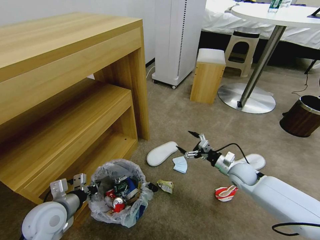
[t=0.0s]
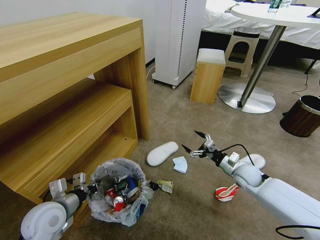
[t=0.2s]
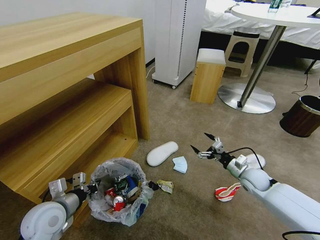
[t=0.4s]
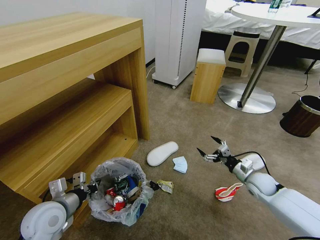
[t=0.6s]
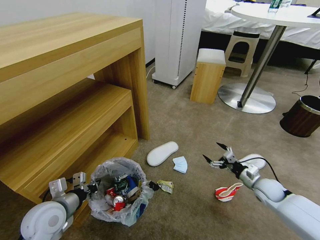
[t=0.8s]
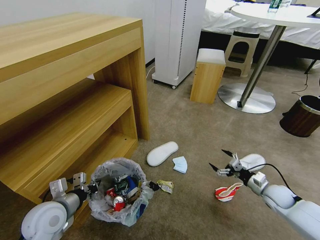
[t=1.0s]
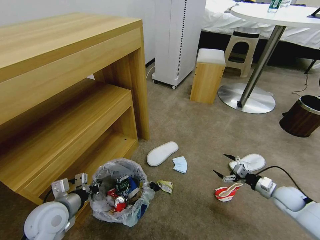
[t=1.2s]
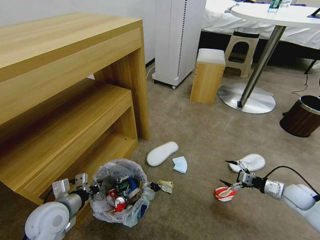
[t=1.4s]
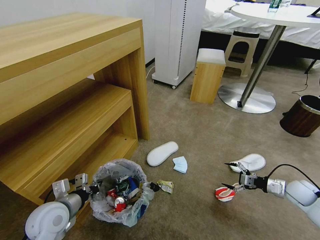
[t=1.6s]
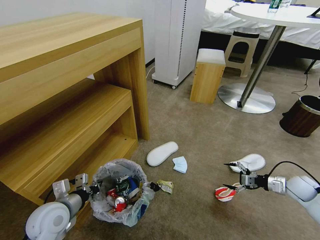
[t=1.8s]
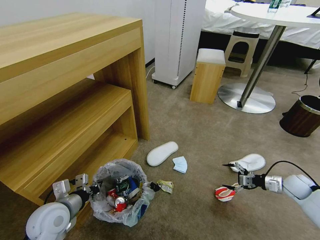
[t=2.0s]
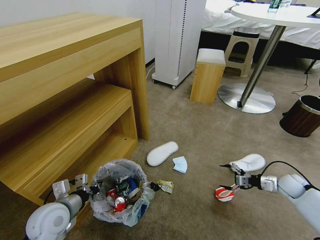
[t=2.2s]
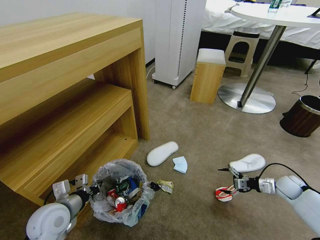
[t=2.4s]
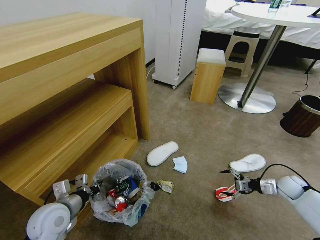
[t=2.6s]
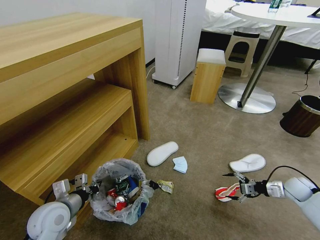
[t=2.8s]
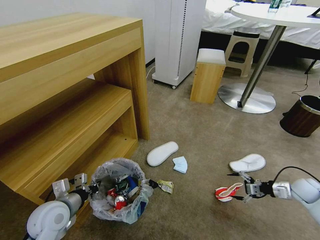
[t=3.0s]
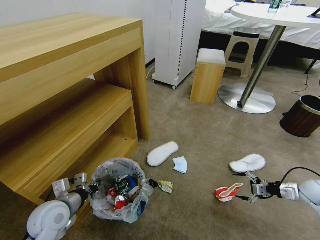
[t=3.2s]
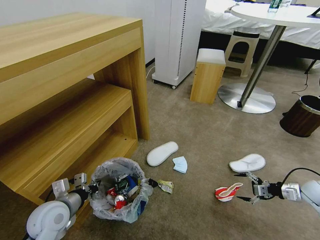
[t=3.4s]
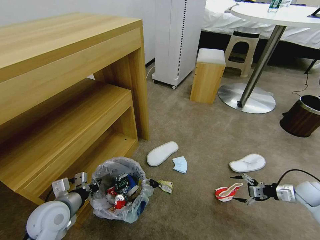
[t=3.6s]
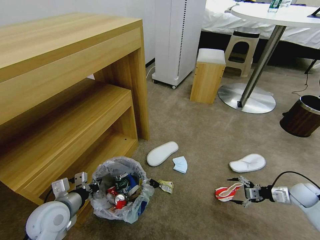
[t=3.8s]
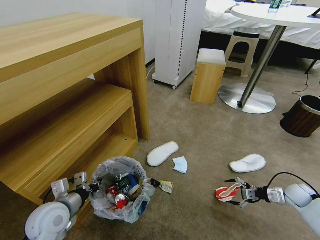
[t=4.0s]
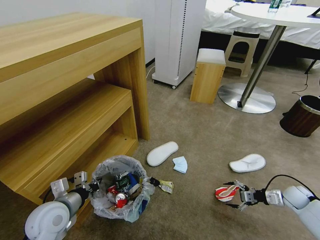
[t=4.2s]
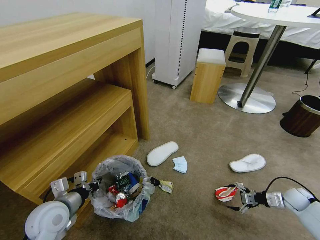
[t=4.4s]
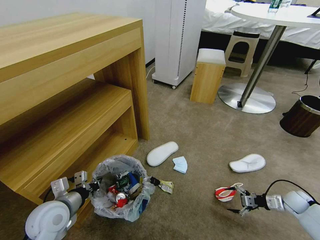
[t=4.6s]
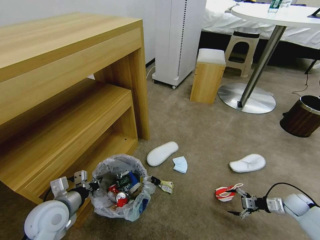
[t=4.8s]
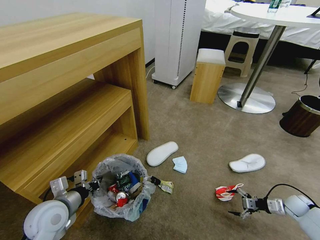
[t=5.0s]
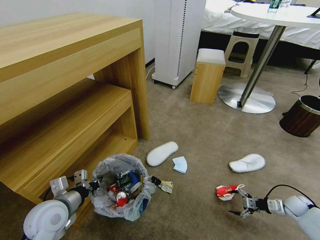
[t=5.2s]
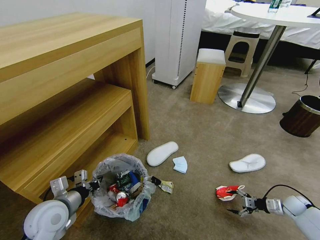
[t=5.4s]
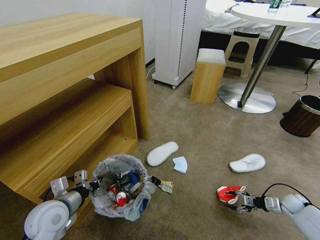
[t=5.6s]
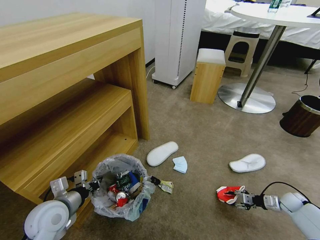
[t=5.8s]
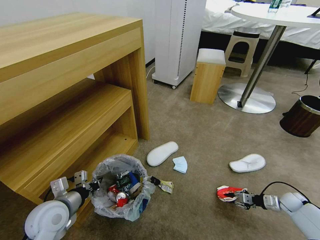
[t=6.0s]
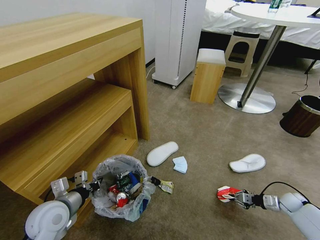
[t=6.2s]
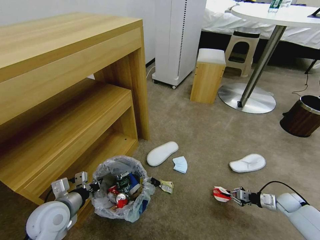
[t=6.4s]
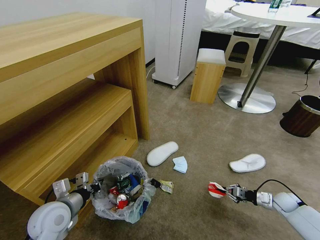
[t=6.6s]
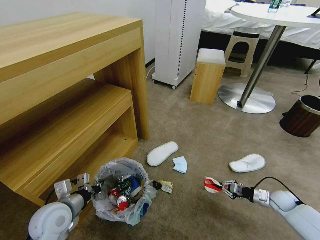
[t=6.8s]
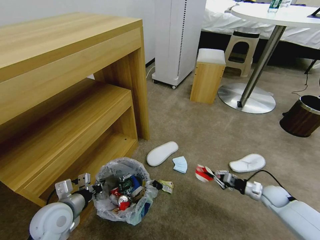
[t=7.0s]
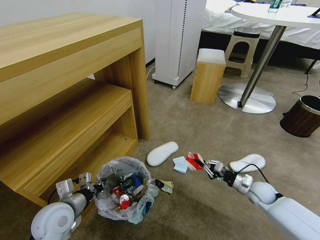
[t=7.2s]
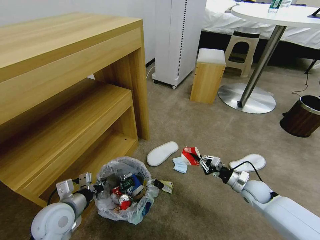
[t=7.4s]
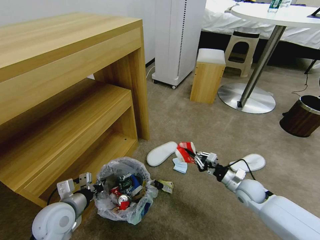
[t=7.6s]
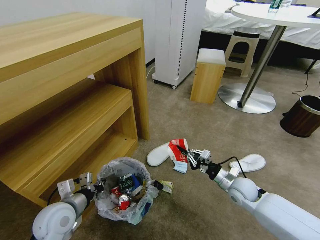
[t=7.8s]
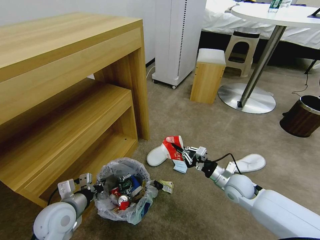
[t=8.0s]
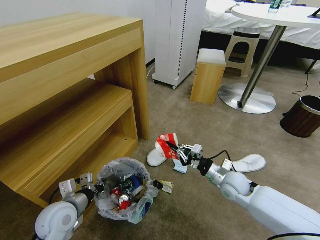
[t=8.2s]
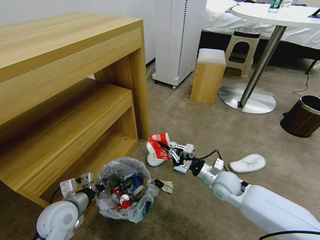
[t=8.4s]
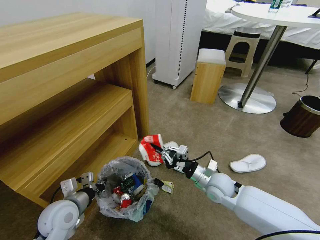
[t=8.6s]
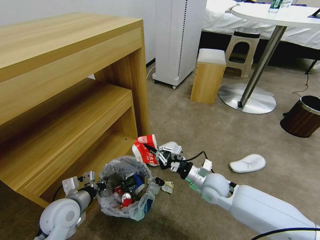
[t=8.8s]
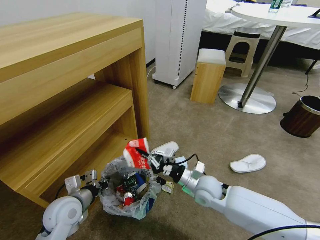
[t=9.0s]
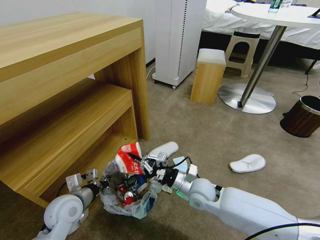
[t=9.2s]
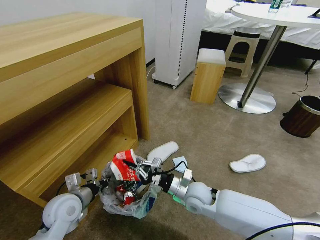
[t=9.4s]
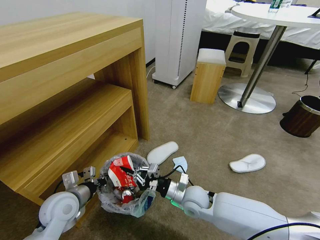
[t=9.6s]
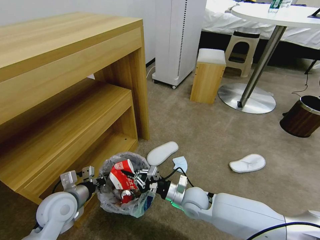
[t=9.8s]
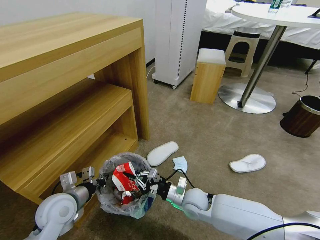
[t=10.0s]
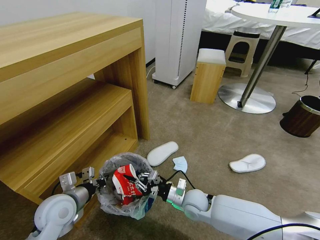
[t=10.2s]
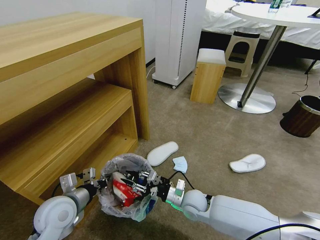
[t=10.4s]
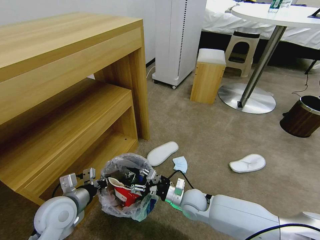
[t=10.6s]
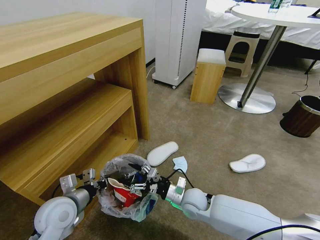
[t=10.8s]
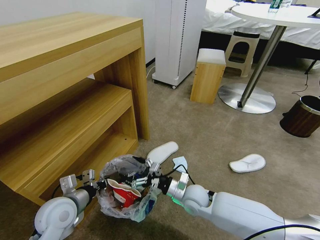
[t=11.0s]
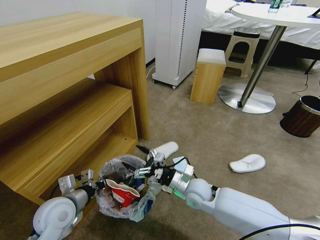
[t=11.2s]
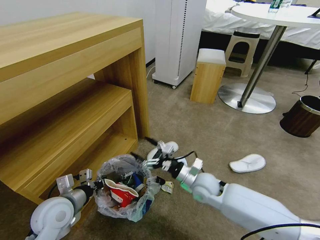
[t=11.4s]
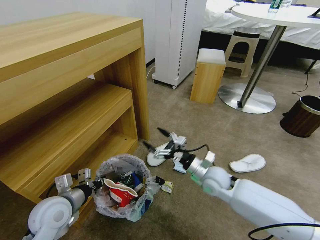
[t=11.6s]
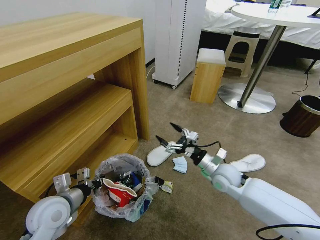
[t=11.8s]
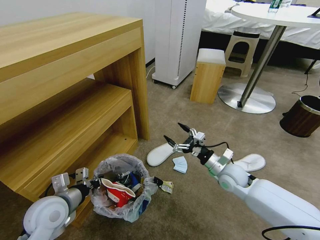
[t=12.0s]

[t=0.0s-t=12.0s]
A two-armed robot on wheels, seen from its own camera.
Task of the whole recording: Pick up the trash bin and place the garbage on the floor into it.
t=0.0s to t=1.6s: The right gripper moves to the right, roughly 20 cm.
t=1.6s to t=3.0s: The grippers stay close to where they were, moving slightly.
t=3.0s to t=4.4s: The right gripper heads downward, covering some 5 cm.
t=4.4s to t=6.0s: The right gripper closes up.
t=6.0s to t=7.6s: The right gripper travels to the left and upward by approximately 25 cm.
t=7.6s to t=9.0s: The right gripper heads to the left, covering some 20 cm.
t=9.0s to t=10.4s: The right gripper heads downward, covering approximately 10 cm.
t=10.4s to t=12.0s: The right gripper is displaced to the right, upward and forward by some 15 cm, and opens.

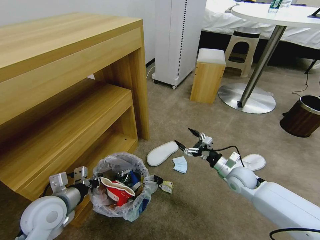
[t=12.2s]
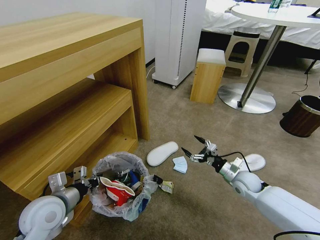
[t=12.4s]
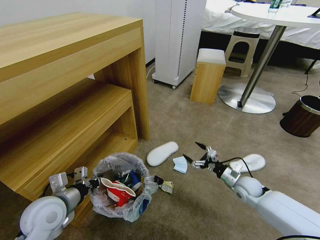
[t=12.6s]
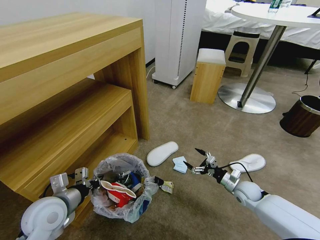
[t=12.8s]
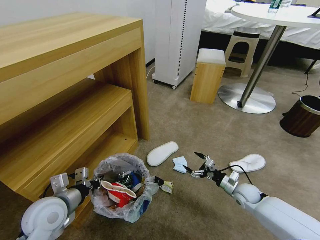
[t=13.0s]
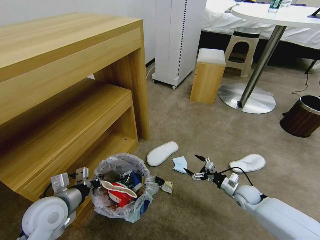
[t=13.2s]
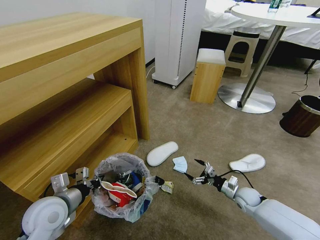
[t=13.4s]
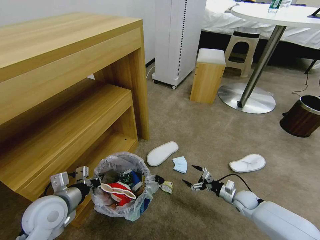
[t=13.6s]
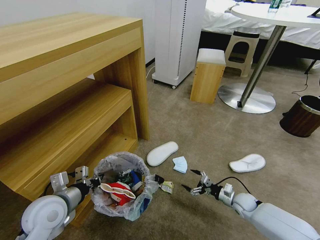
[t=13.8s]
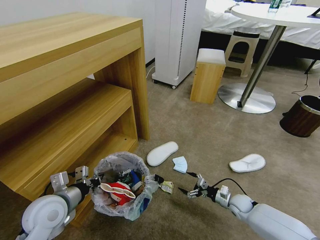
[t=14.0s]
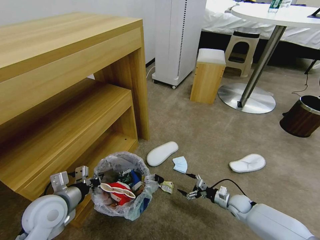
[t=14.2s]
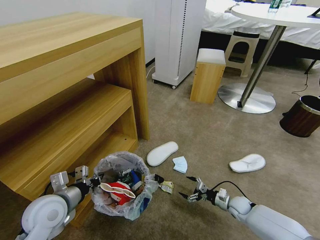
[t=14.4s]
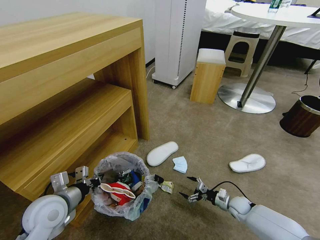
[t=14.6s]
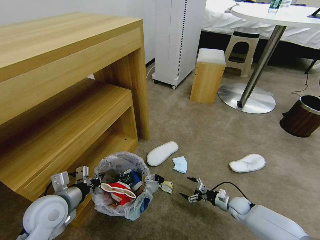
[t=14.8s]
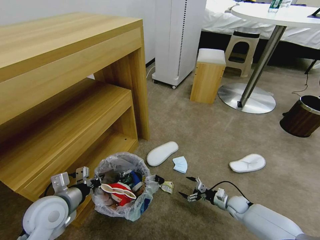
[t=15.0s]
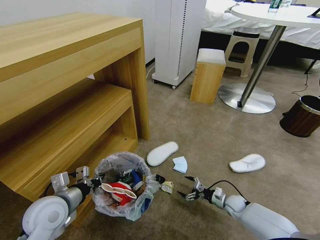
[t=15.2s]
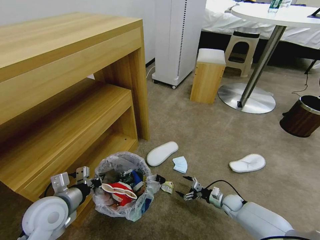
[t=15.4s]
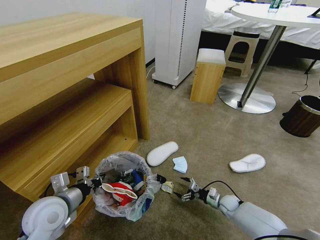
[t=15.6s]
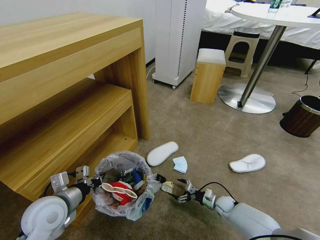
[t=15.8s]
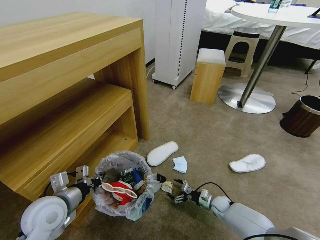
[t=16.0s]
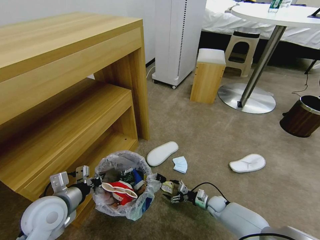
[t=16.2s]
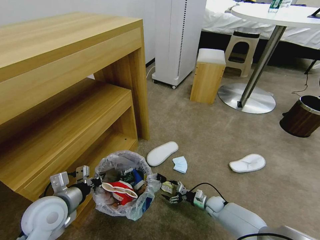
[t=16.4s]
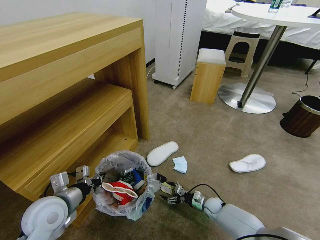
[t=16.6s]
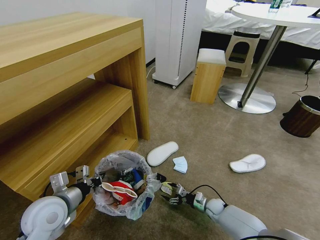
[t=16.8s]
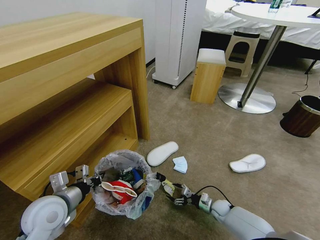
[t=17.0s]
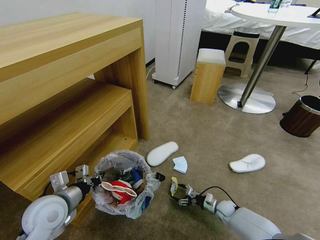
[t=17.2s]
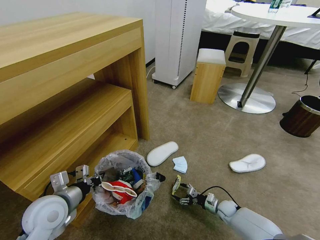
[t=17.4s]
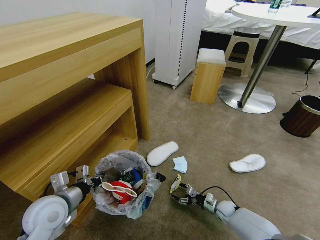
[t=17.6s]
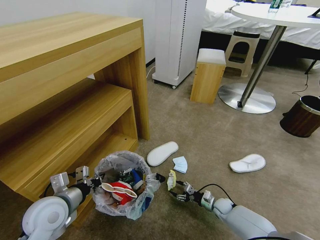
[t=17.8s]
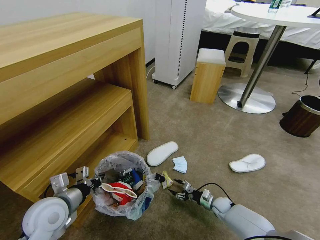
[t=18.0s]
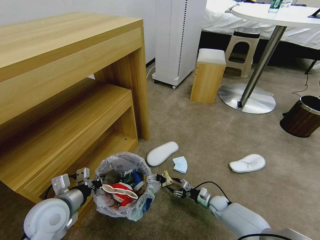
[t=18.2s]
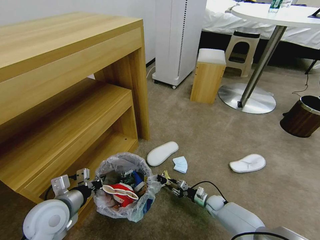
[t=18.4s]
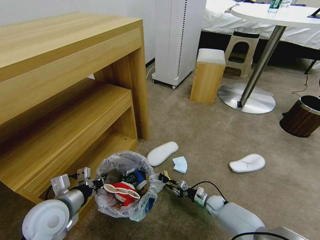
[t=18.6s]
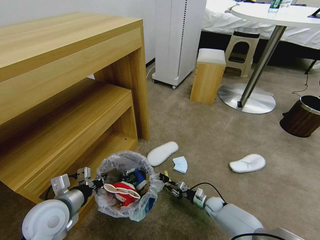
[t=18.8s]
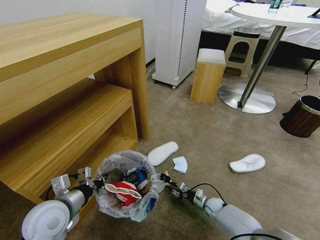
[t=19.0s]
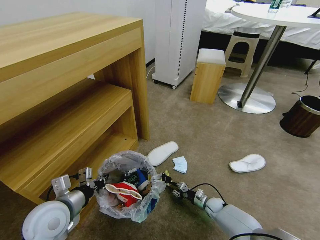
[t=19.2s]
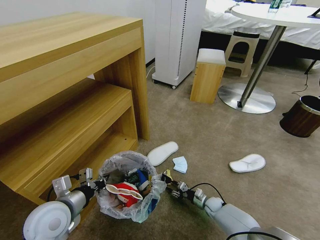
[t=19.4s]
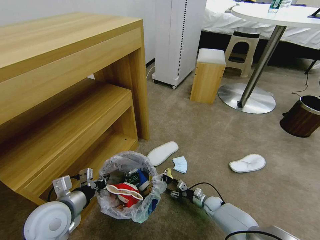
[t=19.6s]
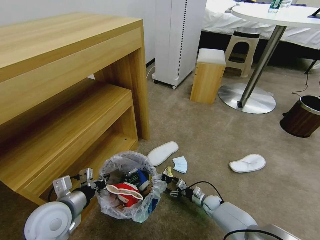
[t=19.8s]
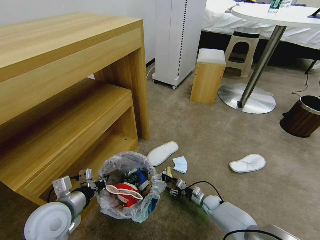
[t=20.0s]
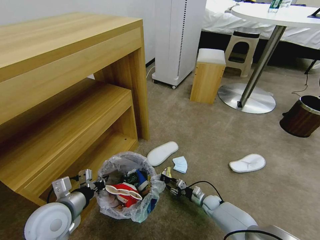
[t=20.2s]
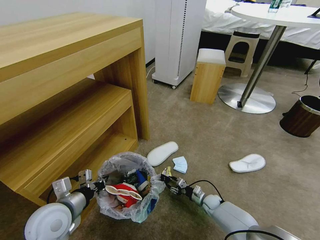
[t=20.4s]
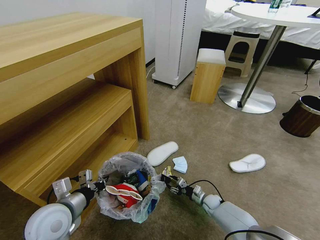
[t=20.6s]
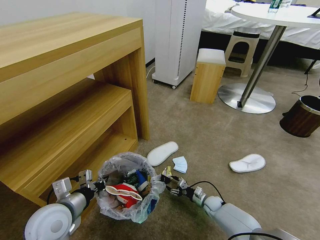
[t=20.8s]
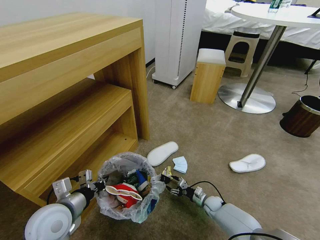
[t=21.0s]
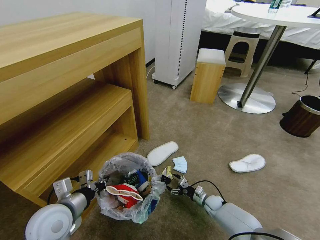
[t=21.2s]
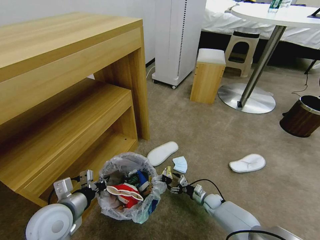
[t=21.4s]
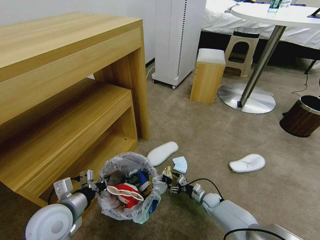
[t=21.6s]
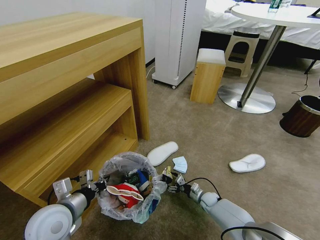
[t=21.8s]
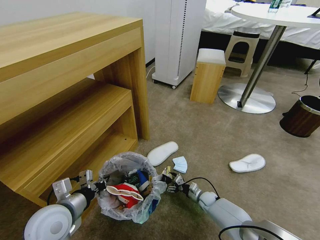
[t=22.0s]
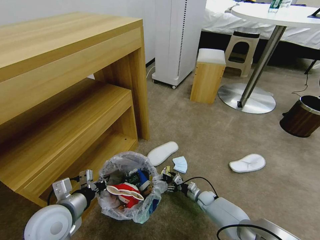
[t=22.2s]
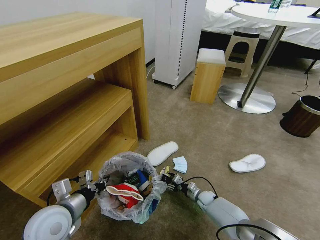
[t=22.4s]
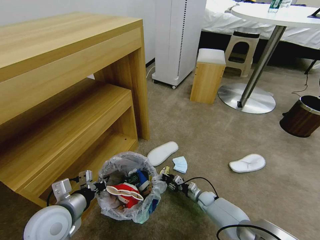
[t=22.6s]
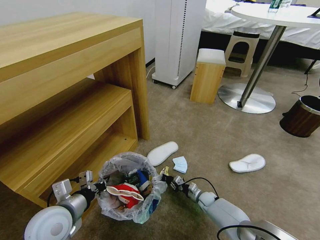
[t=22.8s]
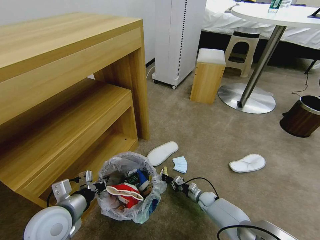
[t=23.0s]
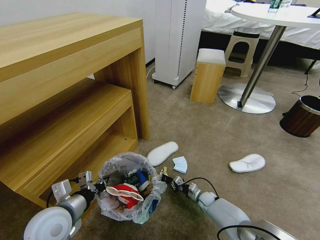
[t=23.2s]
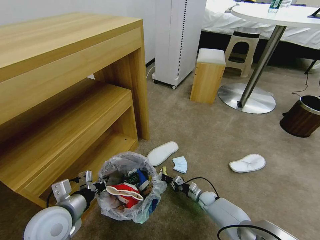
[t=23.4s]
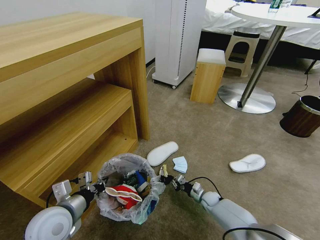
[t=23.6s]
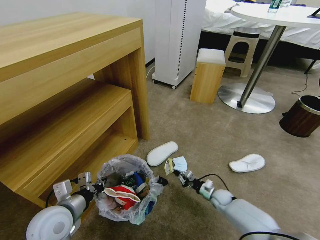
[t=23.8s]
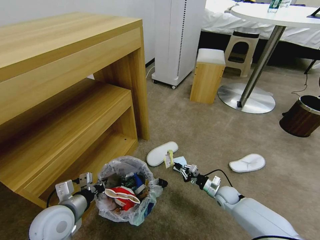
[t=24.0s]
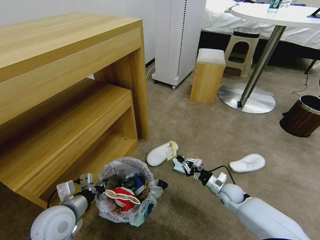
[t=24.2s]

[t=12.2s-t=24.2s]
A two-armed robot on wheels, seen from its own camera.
Task of the whole recording: Pick up the trash bin and place the garbage on the floor into it.
t=12.2s to t=13.8s: The right gripper moves downward and to the right, approximately 20 cm.
t=13.8s to t=15.2s: The grippers move only a little.
t=15.2s to t=16.6s: The right gripper travels to the left by approximately 10 cm.
t=16.6s to t=19.8s: The grippers move only a little.
t=19.8s to t=21.2s: Both grippers stay about where they are.
t=21.2s to t=22.6s: The right gripper closes up.
t=22.6s to t=24.2s: The right gripper is displaced upward by some 15 cm, and closes.
